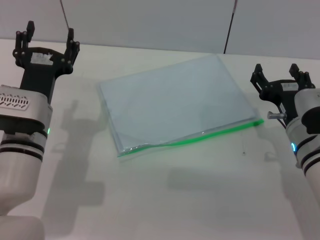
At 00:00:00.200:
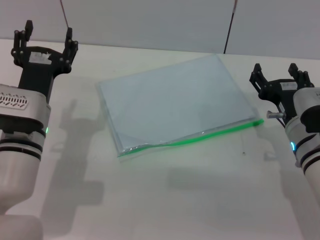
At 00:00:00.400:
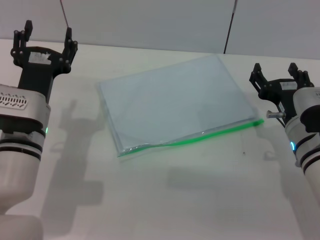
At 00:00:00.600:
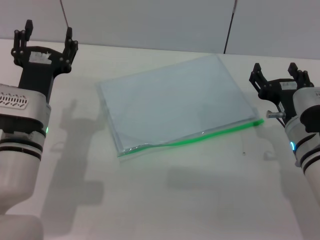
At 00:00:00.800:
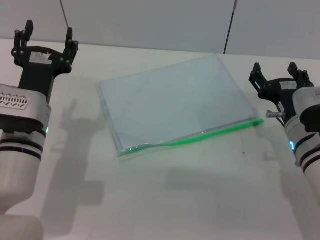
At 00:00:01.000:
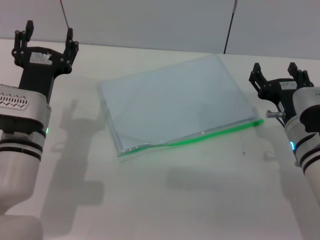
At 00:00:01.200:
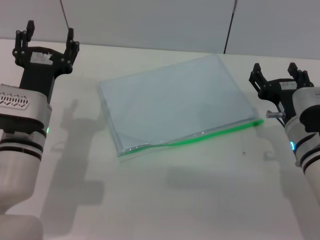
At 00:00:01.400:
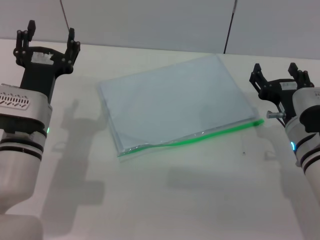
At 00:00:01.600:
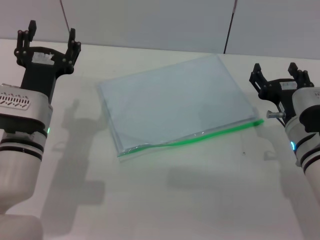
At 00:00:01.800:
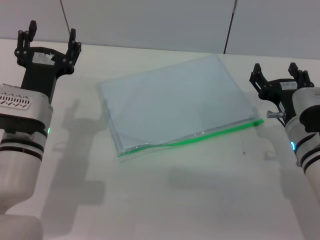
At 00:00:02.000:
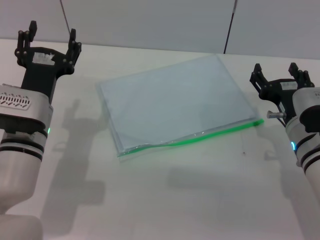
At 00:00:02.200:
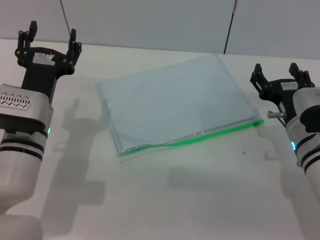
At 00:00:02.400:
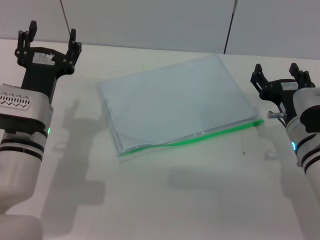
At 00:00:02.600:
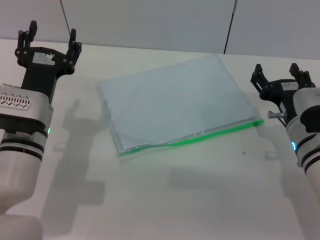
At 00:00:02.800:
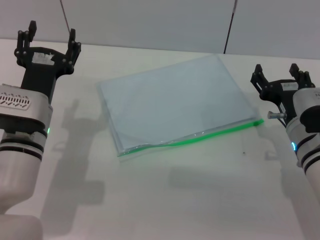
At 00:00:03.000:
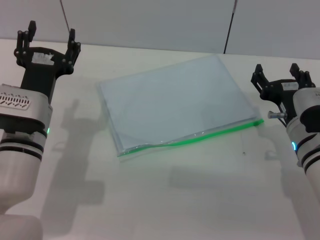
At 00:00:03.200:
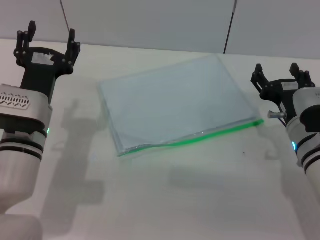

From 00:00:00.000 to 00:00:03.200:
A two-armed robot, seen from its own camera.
From 00:00:00.000 to 00:00:03.200: Both grippers stay about where they are.
